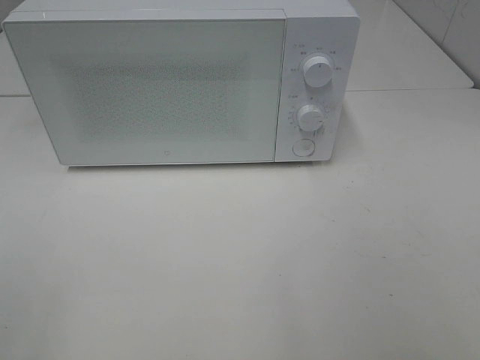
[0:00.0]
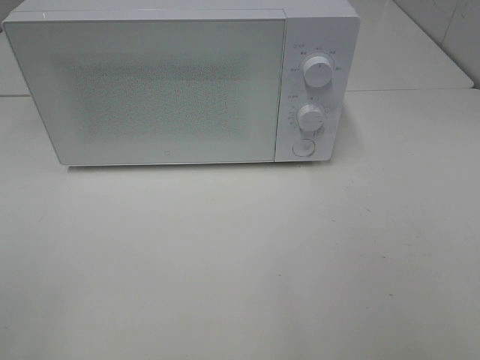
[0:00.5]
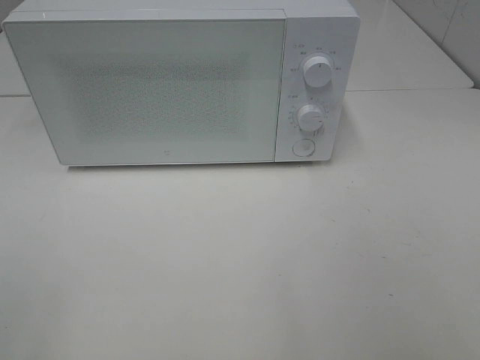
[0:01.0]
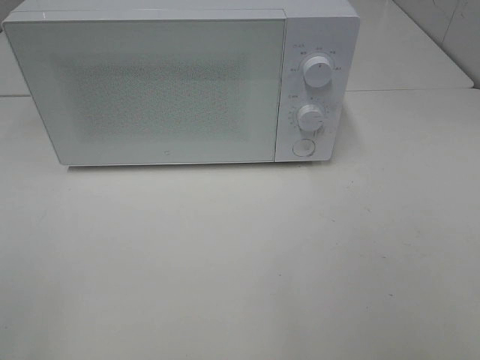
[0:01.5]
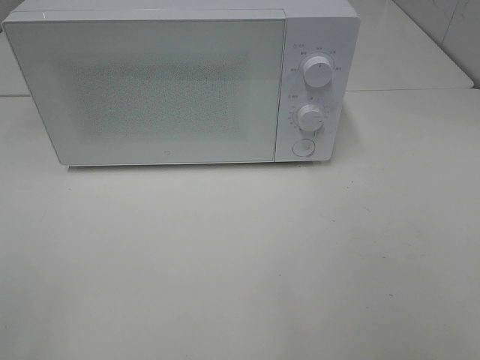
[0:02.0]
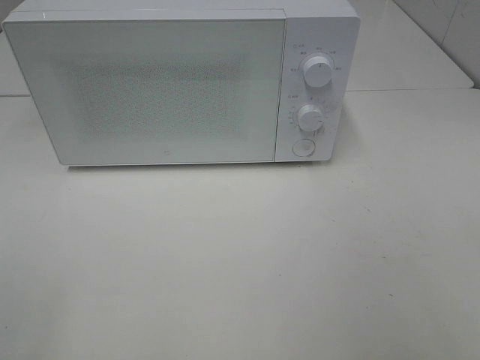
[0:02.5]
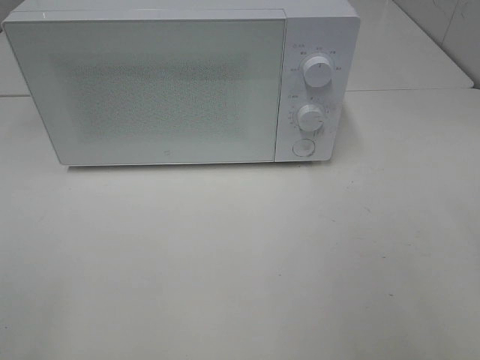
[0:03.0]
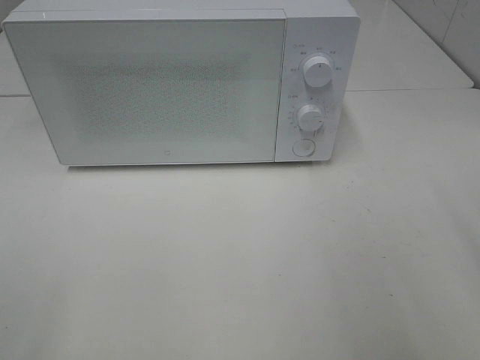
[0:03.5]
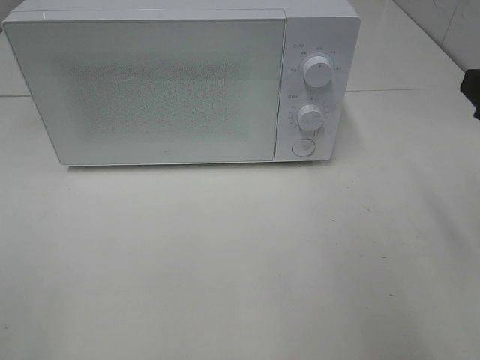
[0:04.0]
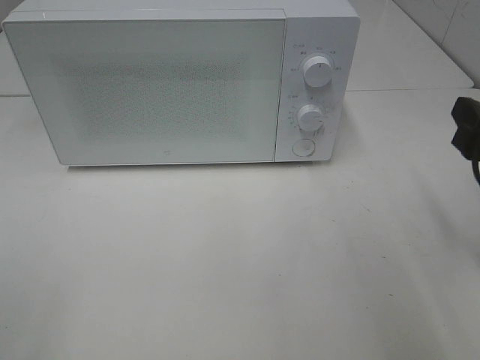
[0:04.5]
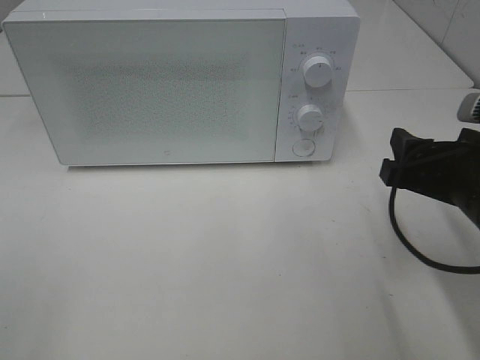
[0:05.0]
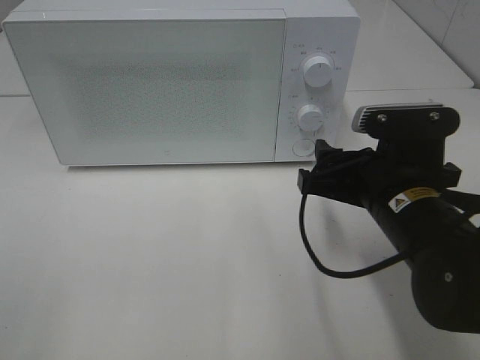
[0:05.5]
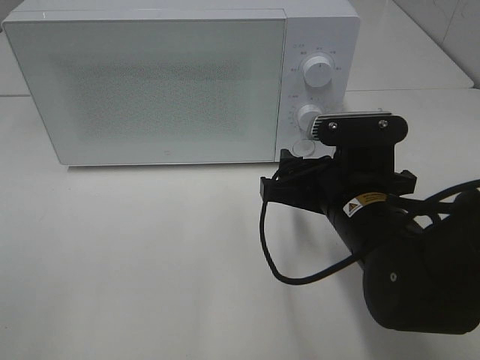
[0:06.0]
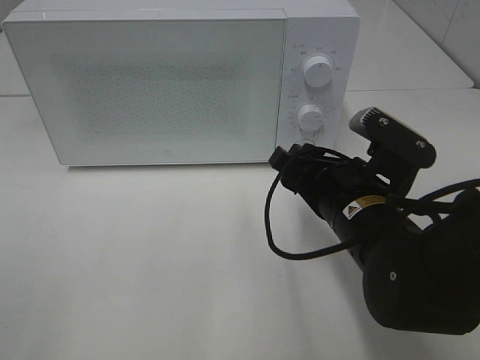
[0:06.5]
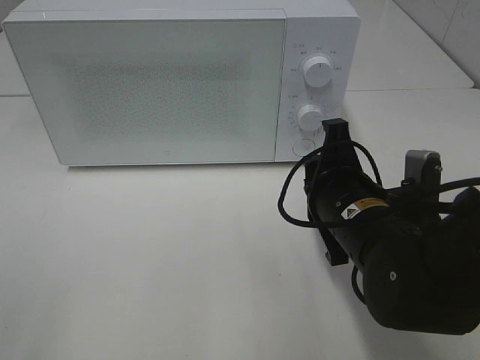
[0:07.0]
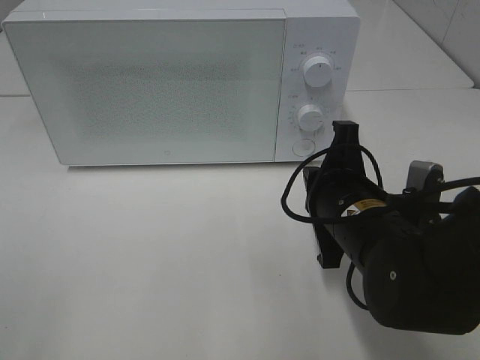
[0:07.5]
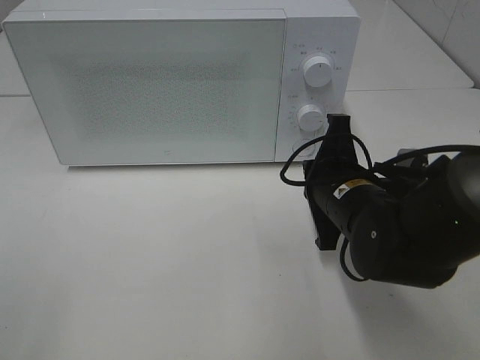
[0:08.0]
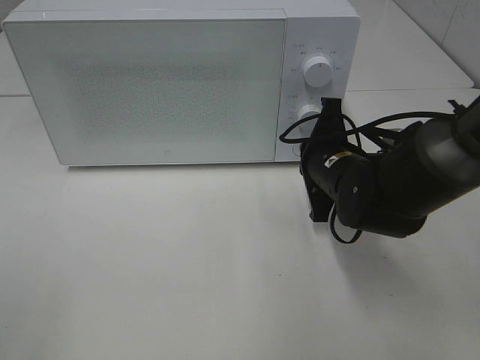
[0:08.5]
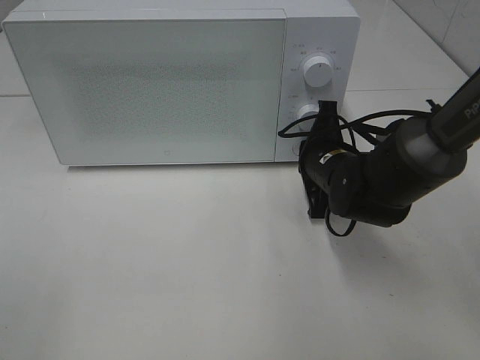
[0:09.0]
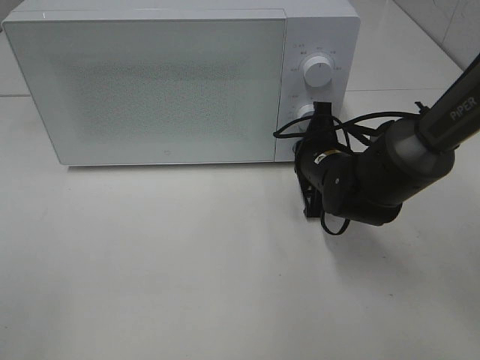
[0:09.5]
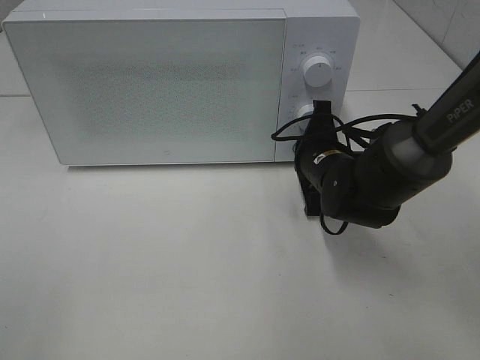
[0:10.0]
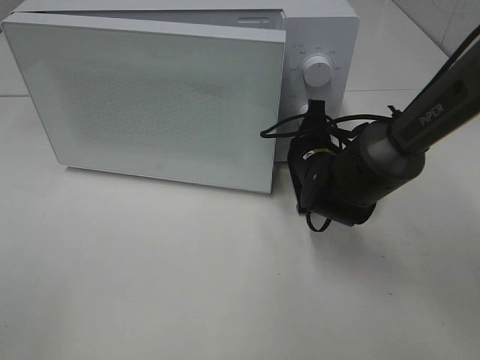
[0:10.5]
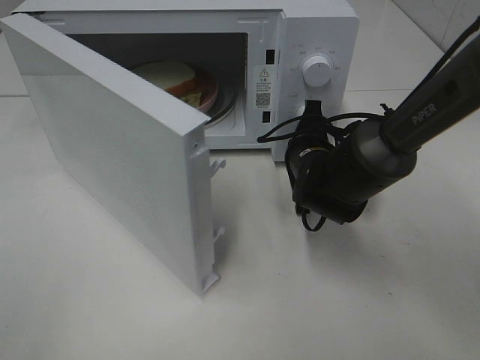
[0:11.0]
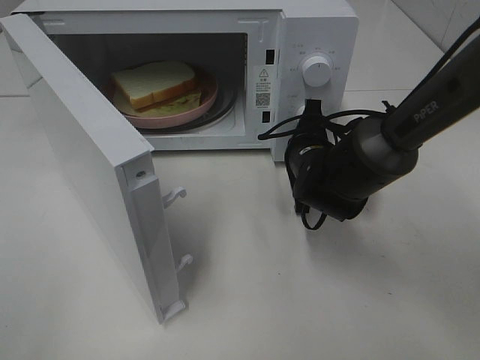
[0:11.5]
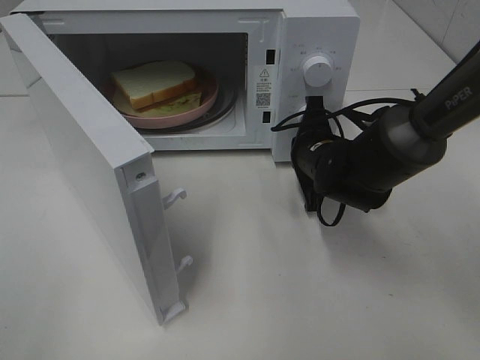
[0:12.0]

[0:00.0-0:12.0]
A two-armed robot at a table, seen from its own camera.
Task of the whole recording: Heat Sandwich.
0:00.0 to 0:02.0: The two grippers keep their place.
0:04.0 to 0:06.0: The right gripper is displaced to the left and downward by approximately 20 cm.
0:06.0 to 0:08.0: The right gripper closes.
0:08.0 to 0:10.0: The right gripper goes approximately 10 cm forward.

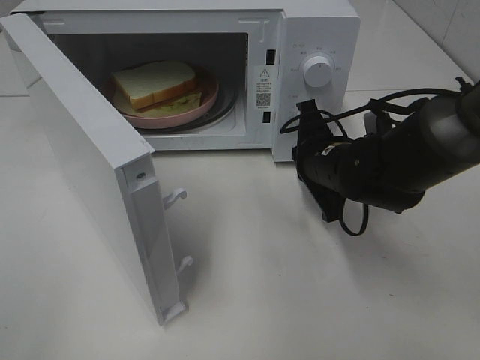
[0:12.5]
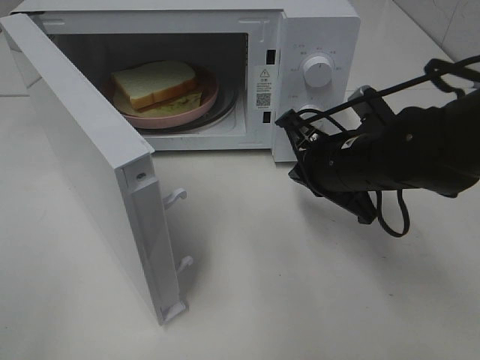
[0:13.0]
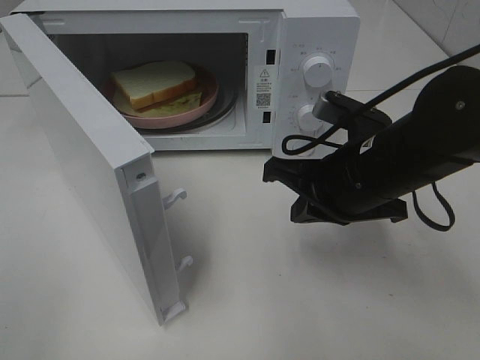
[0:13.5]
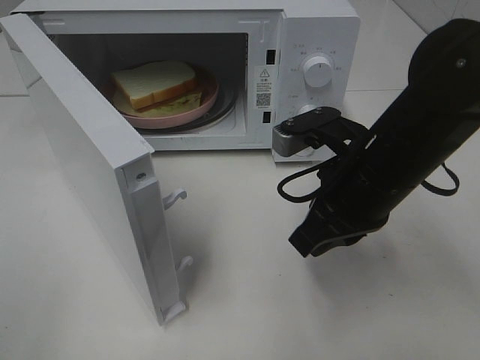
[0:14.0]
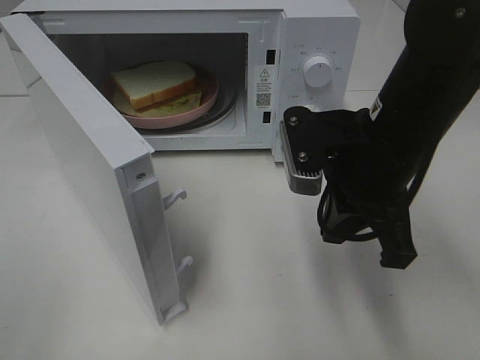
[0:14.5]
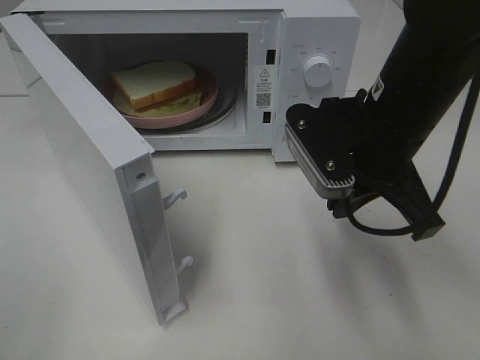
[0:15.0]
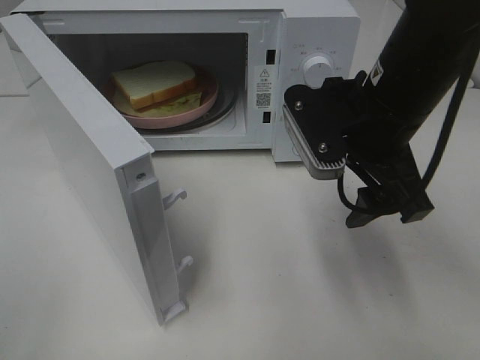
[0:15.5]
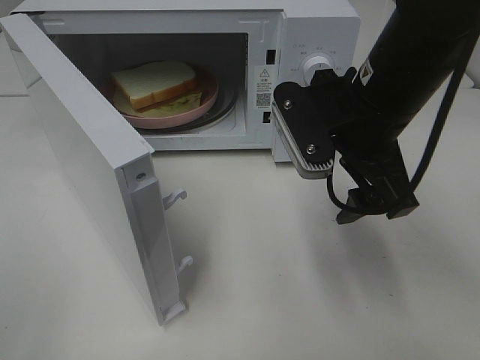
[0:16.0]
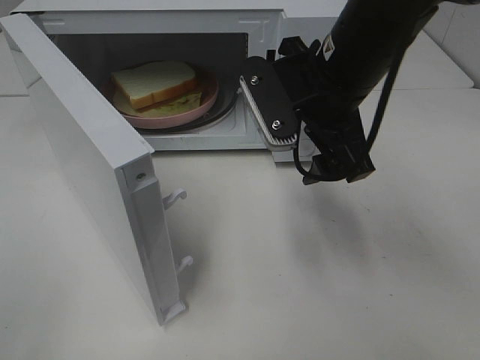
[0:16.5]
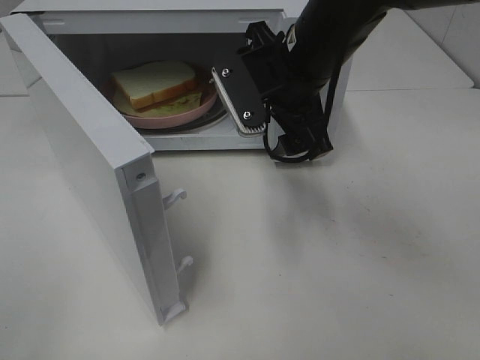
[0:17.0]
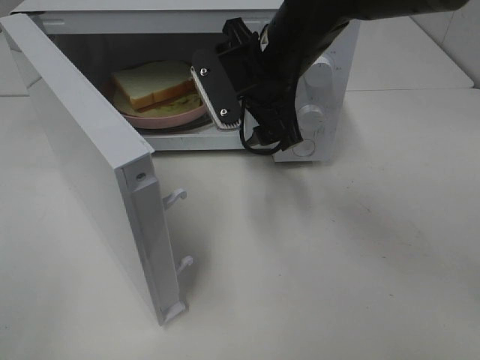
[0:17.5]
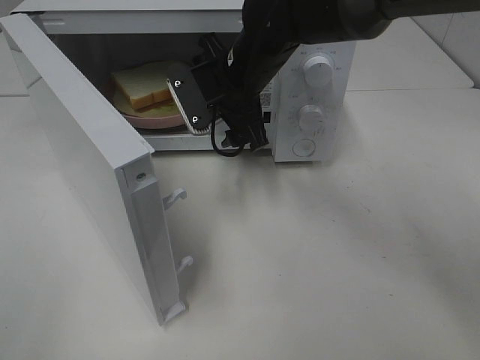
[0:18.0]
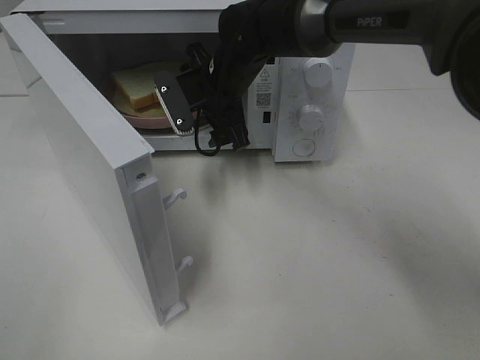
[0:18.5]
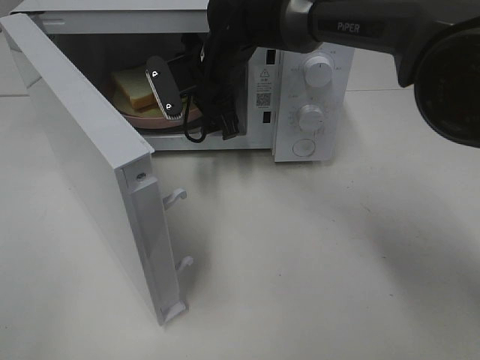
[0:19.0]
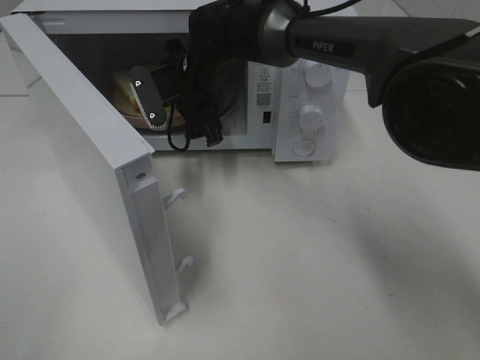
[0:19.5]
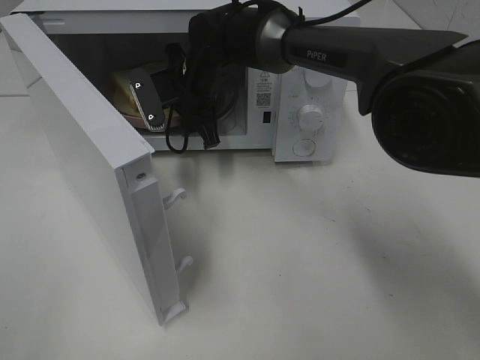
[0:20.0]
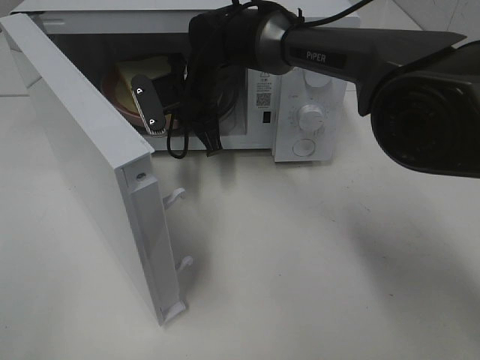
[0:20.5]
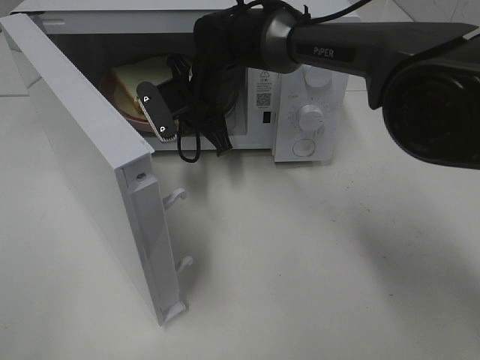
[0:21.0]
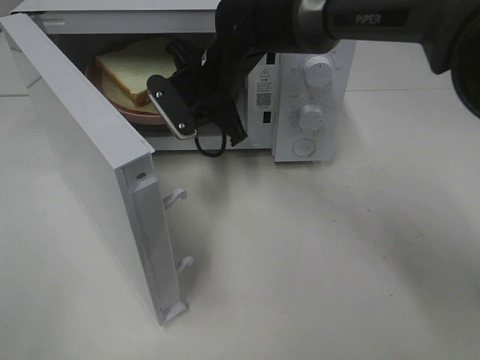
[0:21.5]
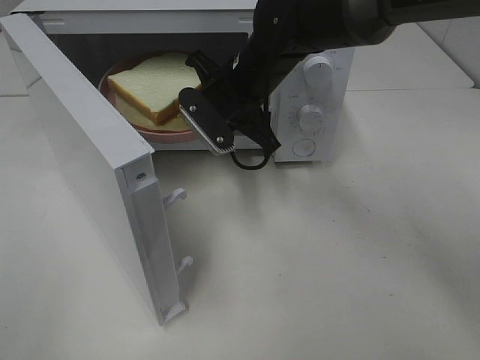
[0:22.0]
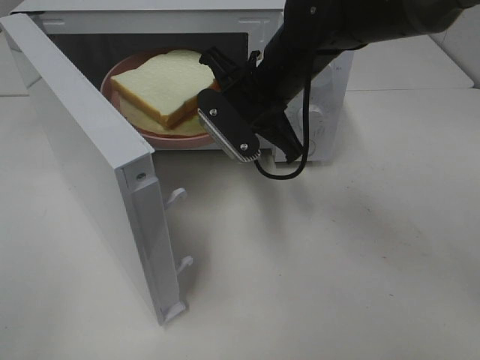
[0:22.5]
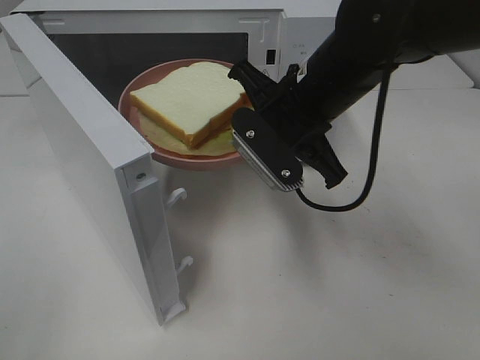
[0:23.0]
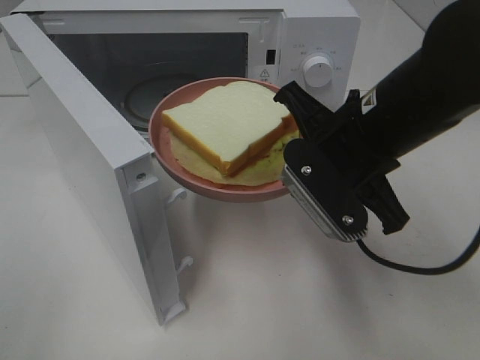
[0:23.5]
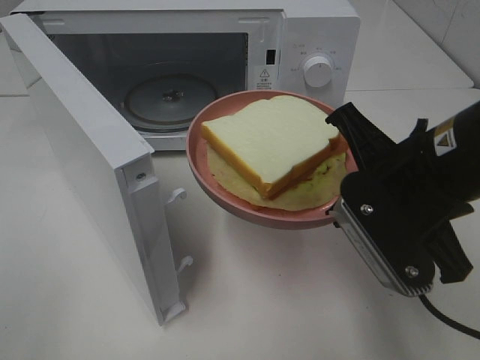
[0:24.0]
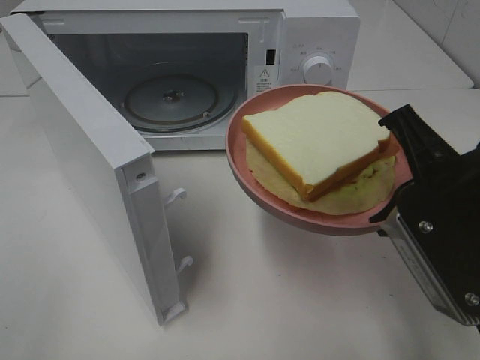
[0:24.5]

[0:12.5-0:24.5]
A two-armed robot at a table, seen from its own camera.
Task of the whole recording: Heat Sandwich.
Step, 0:13.0 to 0:20.5: Right hand: grab the plate with the sandwich.
0:12.5 to 0:14.5: The right gripper heads upward and backward, covering about 15 cm.
0:14.5 to 0:16.5: The right gripper travels forward by about 5 cm, and opens its fingers.
0:16.5 to 0:18.5: The right gripper moves forward, to the left and downward, some 20 cm.
0:18.5 to 0:20.5: The right gripper closes.
0:20.5 to 0:22.5: The right gripper travels backward, to the right and upward by approximately 15 cm.
0:22.5 to 0:24.5: The right gripper travels backward and to the right by roughly 25 cm.

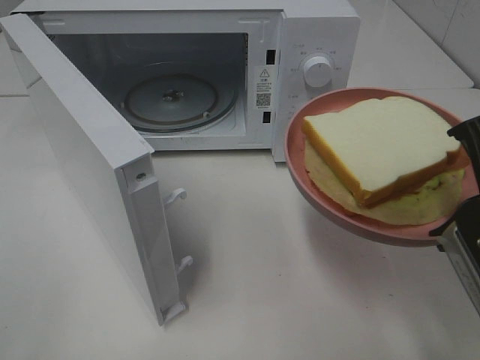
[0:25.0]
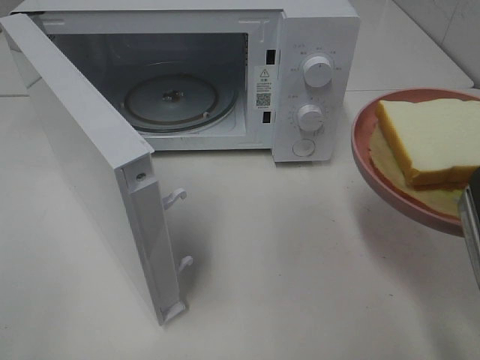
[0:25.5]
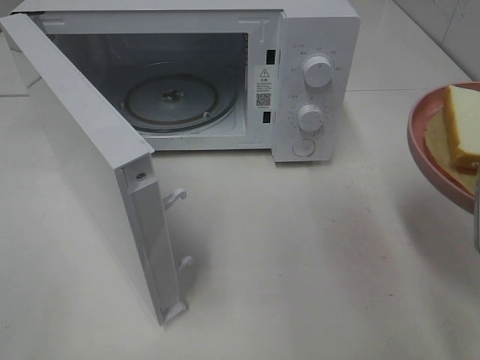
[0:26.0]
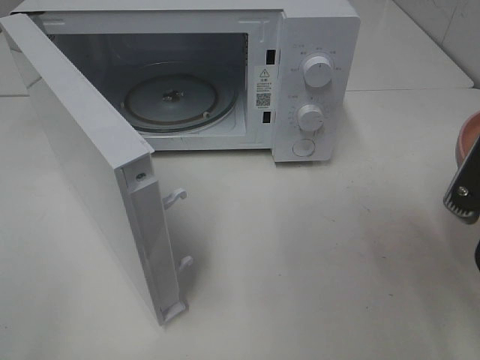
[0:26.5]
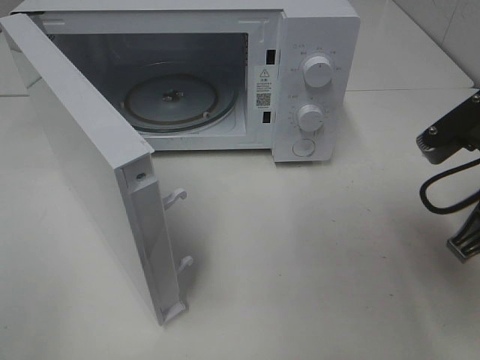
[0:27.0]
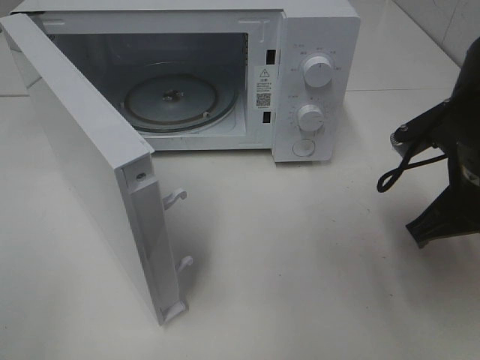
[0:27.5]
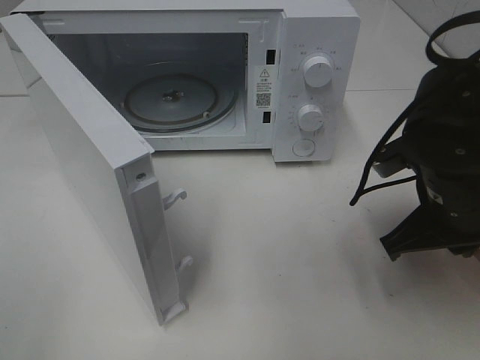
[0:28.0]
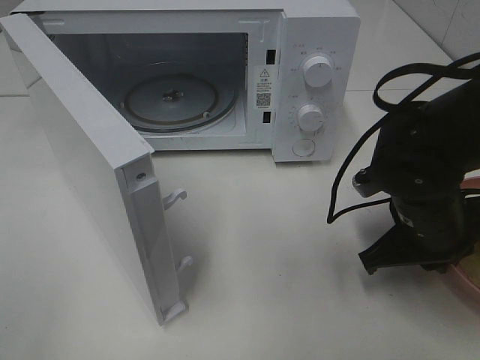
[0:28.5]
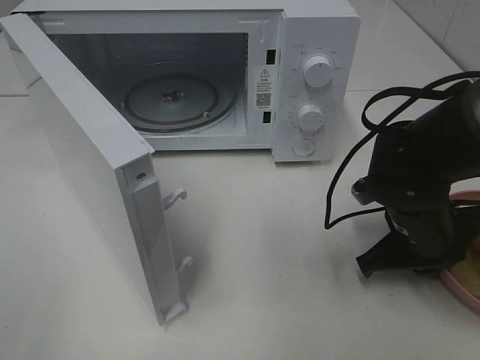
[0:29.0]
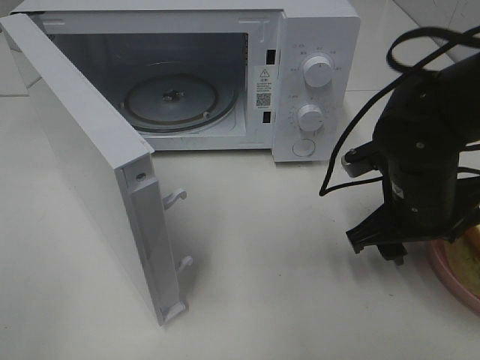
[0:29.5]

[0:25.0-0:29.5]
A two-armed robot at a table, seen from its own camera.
Task of the whole recording: Heat Sandwich.
0:25.0 to 0:27.0: The right gripper travels forward by roughly 5 cm.
0:27.0 to 0:29.5: The right gripper is displaced downward and forward by some 10 cm, and opens.
